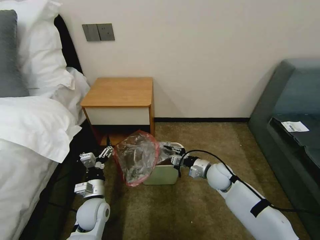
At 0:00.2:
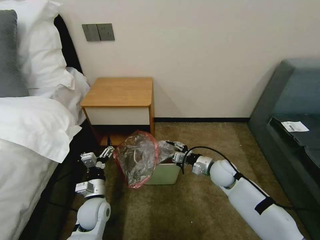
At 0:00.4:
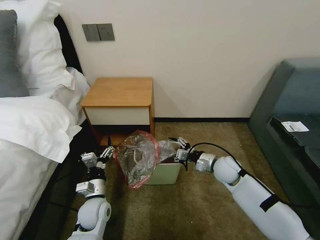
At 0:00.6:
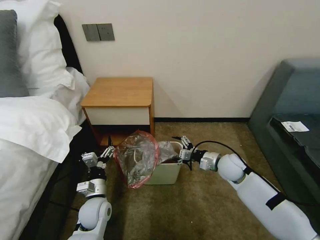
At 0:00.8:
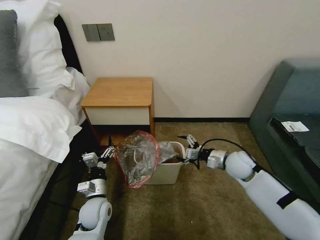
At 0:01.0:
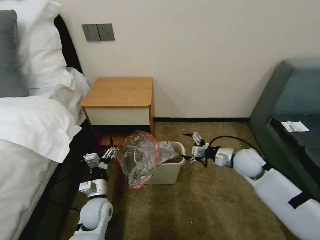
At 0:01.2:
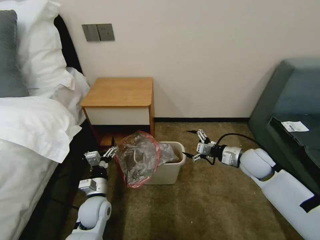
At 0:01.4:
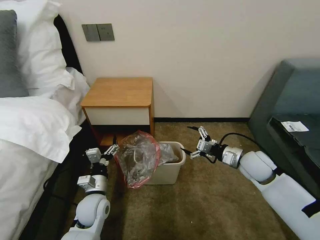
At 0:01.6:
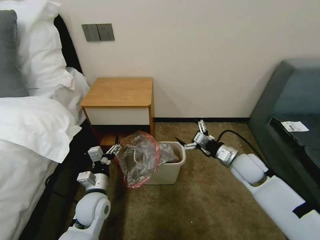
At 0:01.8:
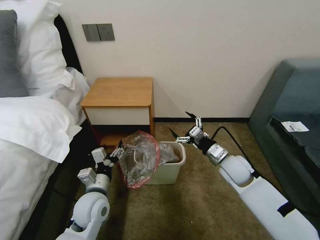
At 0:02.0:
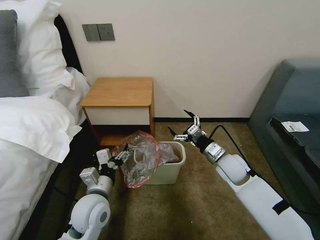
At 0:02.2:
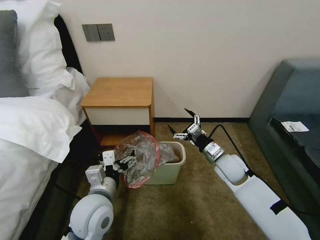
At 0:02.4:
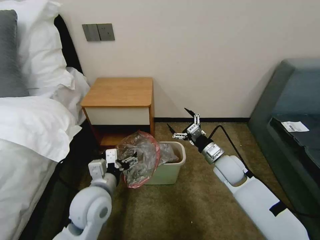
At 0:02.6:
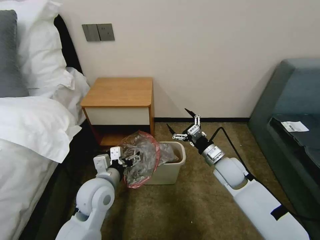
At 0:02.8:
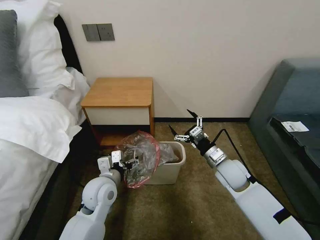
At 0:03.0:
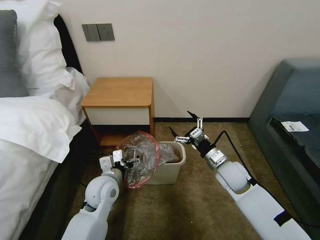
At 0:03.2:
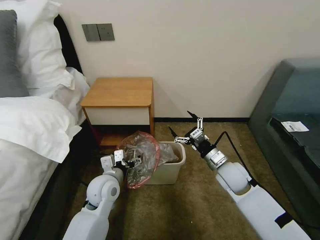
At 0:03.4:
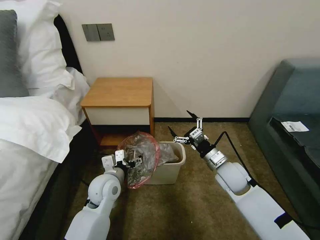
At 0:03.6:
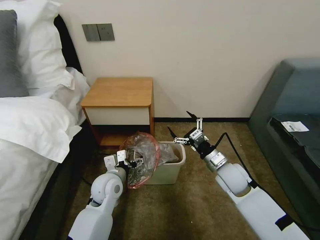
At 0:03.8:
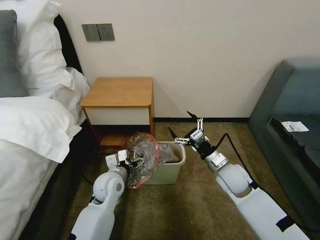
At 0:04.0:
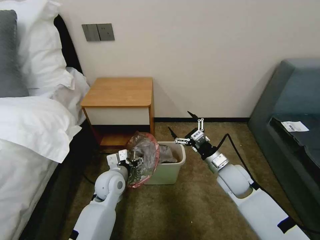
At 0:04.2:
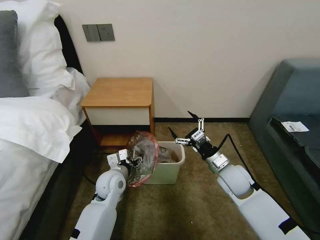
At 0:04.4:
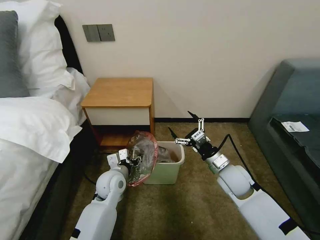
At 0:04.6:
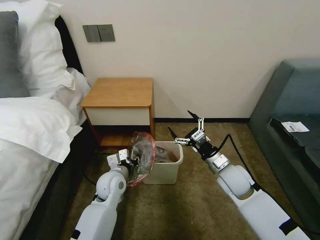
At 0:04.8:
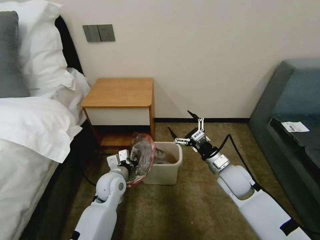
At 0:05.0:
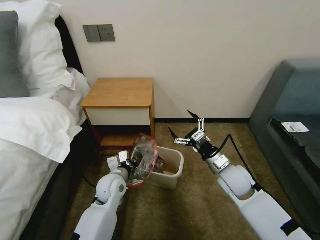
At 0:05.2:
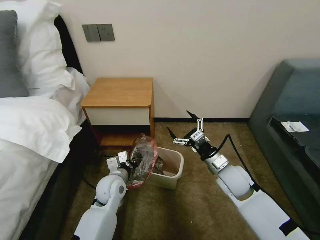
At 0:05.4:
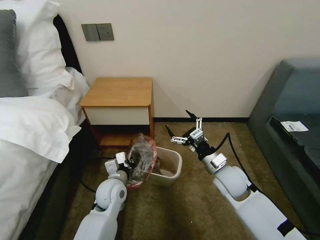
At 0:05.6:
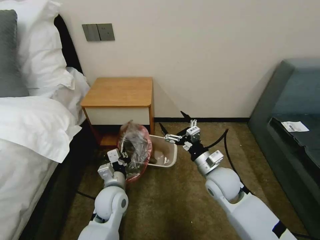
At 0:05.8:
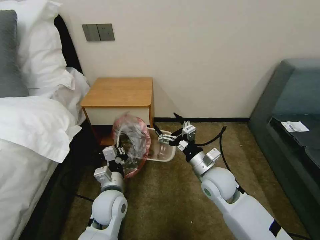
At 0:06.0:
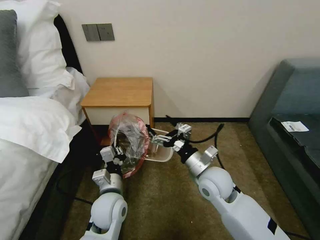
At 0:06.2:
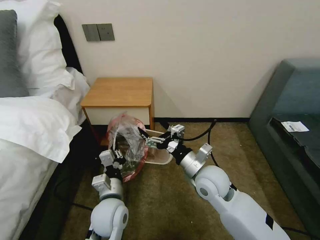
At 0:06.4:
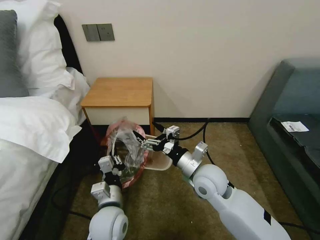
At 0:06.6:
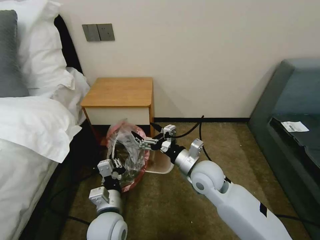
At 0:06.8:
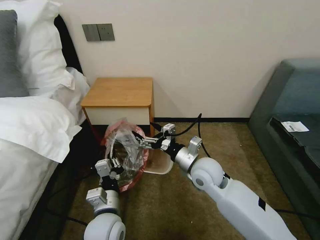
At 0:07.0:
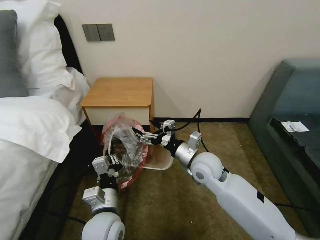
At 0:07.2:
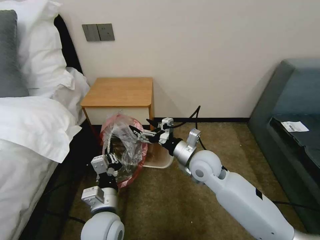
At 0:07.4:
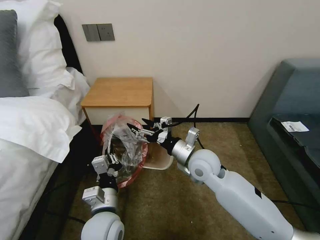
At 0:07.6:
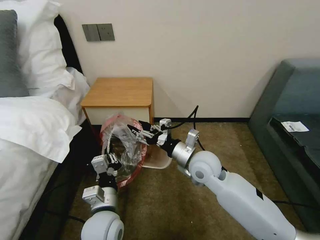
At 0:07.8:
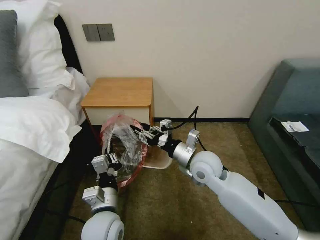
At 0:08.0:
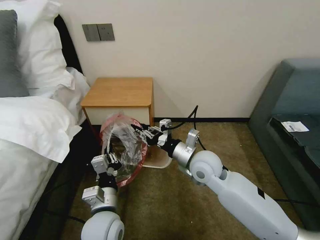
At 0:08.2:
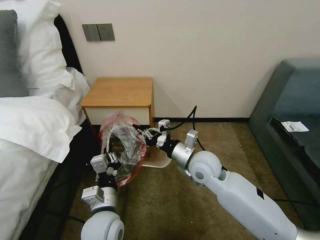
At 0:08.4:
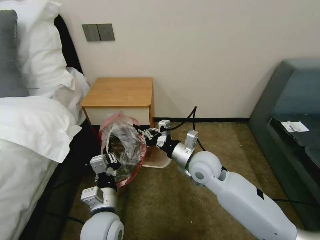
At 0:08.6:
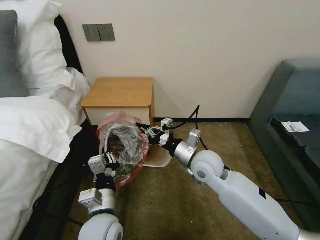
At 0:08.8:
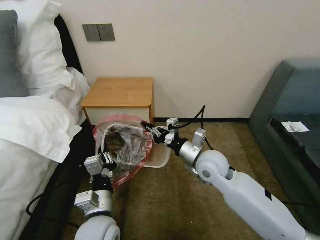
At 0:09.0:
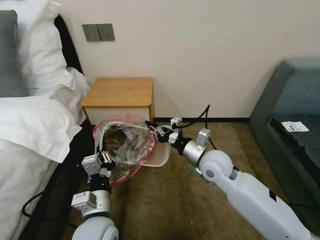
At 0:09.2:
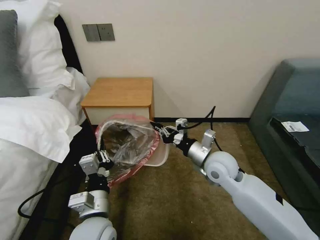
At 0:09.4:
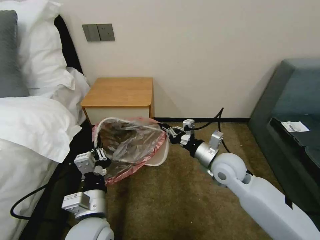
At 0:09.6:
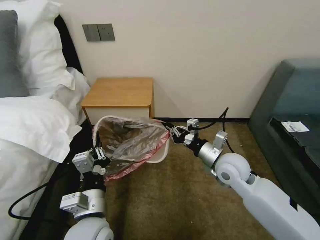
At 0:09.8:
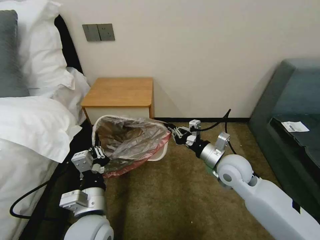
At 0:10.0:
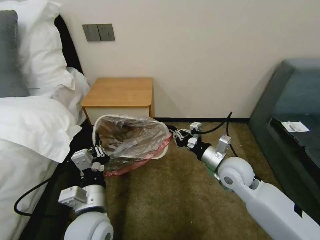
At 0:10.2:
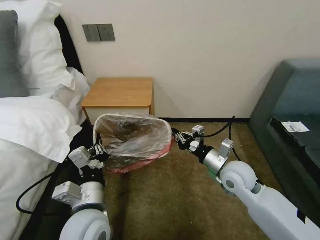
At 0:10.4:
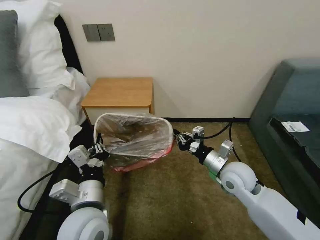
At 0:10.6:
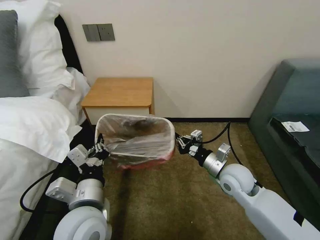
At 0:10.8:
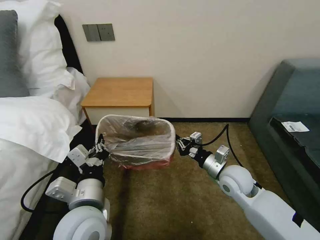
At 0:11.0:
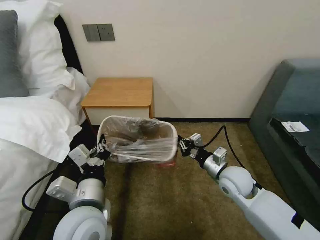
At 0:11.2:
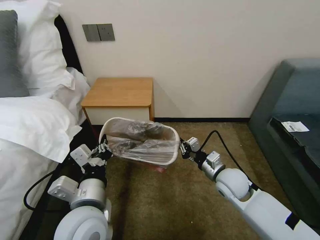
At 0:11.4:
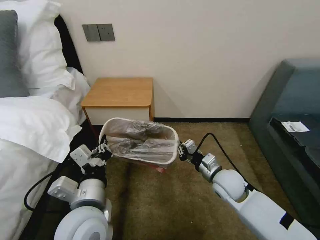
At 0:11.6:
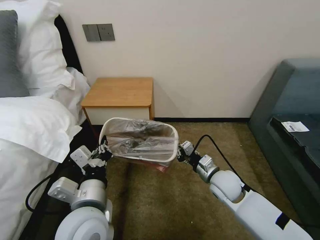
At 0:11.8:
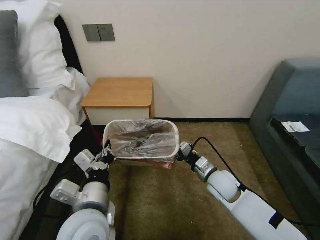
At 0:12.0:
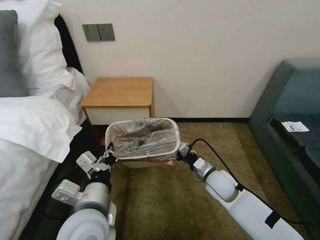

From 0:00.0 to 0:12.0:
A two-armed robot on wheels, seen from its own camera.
Task of the whole recording: Pick up the garbage bag from the table and place it over the trash can.
From 0:00.0 to 0:01.6: The right gripper shifts some 10 cm upward and to the right, and opens up.
From 0:01.6 to 0:03.0: The right gripper travels to the left by some 5 cm.
From 0:03.0 to 0:04.4: The left gripper moves approximately 5 cm, and closes.
From 0:04.4 to 0:06.0: The right gripper moves to the left, roughly 10 cm, while the left gripper travels backward by about 10 cm, and closes up.
From 0:06.0 to 0:07.6: The right gripper shifts by roughly 5 cm, and closes. Meanwhile the left gripper heads backward, covering roughly 5 cm.
From 0:07.6 to 0:09.0: The right gripper closes its fingers.
From 0:09.0 to 0:10.4: The right gripper moves to the right, about 5 cm. Meanwhile the left gripper travels upward by roughly 5 cm.
From 0:10.4 to 0:12.0: The right gripper heads downward, covering roughly 10 cm.

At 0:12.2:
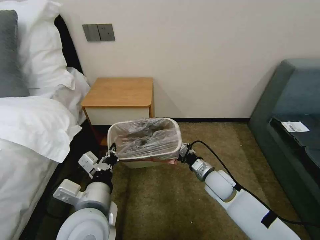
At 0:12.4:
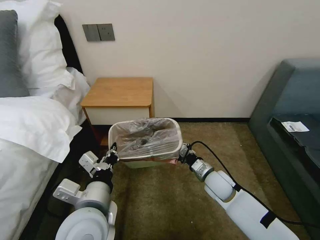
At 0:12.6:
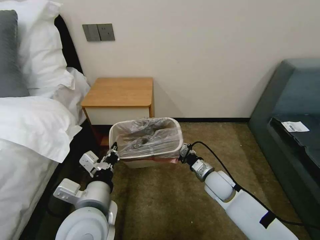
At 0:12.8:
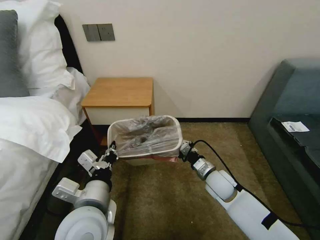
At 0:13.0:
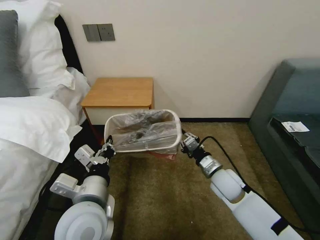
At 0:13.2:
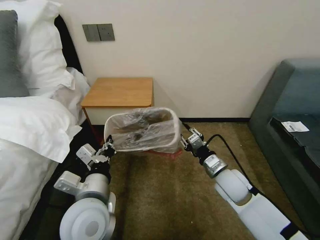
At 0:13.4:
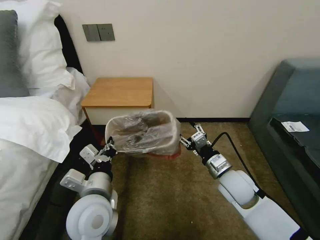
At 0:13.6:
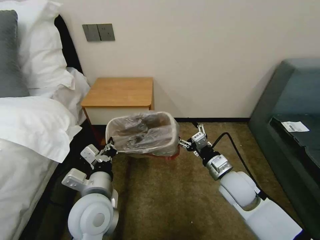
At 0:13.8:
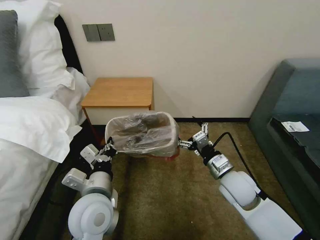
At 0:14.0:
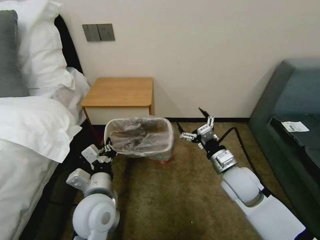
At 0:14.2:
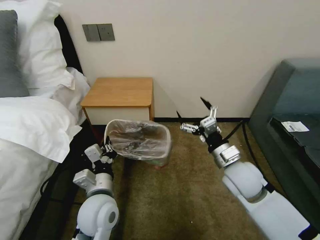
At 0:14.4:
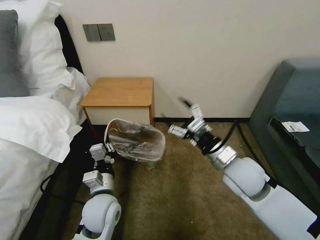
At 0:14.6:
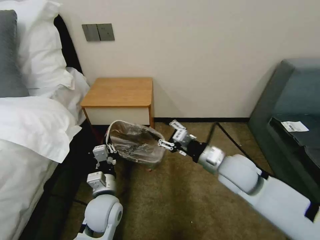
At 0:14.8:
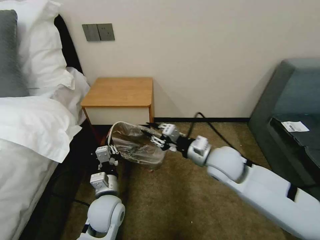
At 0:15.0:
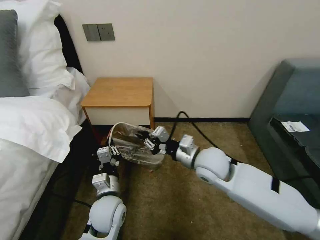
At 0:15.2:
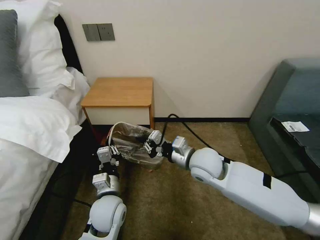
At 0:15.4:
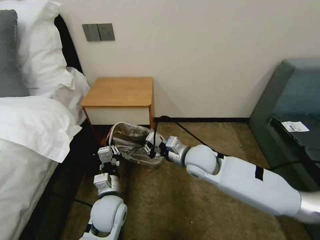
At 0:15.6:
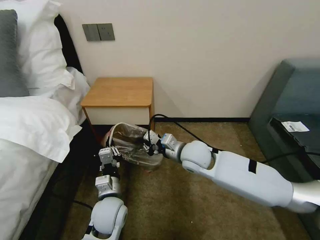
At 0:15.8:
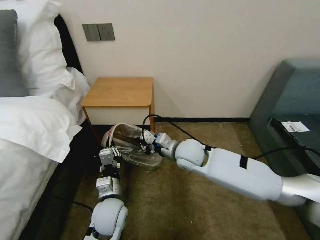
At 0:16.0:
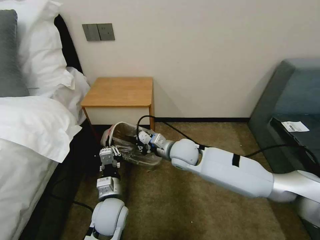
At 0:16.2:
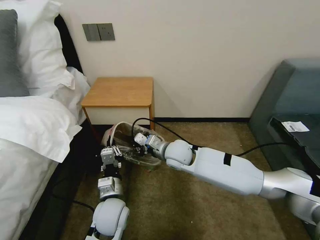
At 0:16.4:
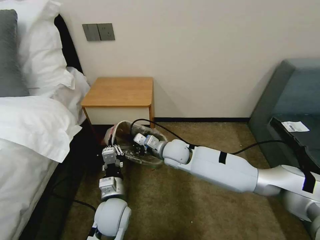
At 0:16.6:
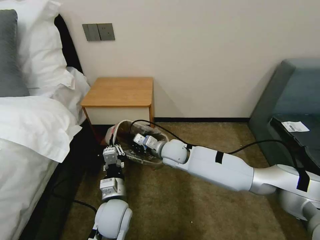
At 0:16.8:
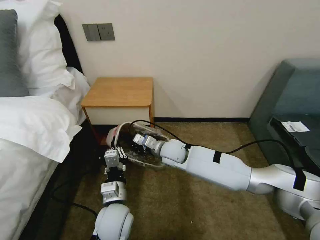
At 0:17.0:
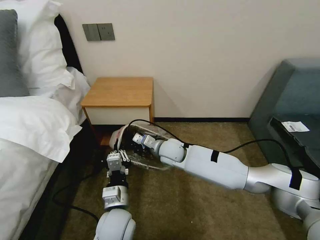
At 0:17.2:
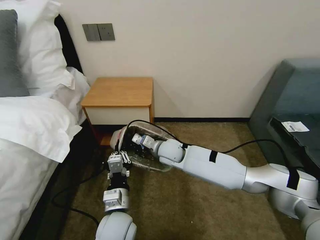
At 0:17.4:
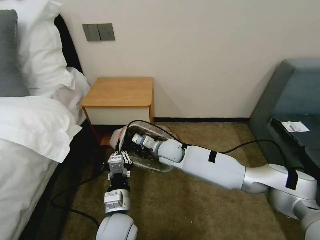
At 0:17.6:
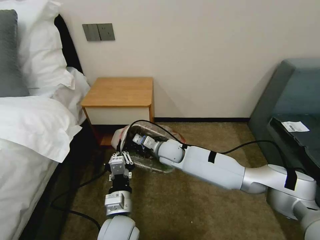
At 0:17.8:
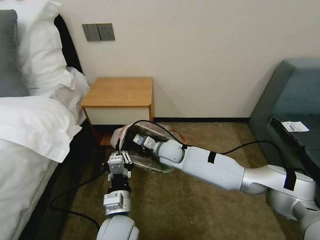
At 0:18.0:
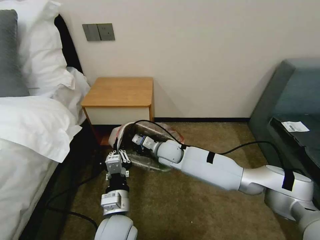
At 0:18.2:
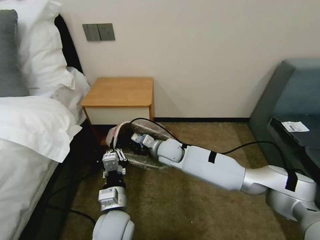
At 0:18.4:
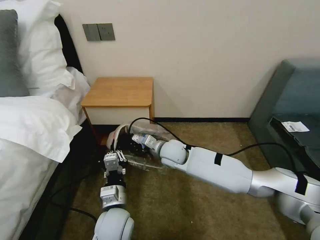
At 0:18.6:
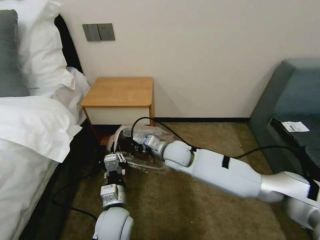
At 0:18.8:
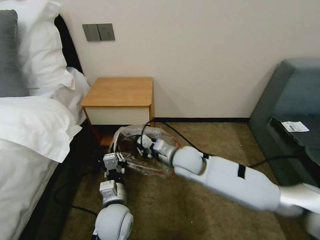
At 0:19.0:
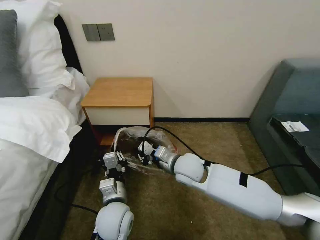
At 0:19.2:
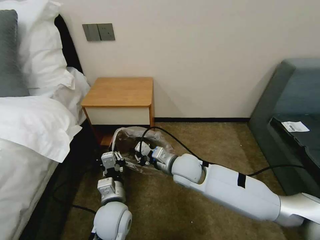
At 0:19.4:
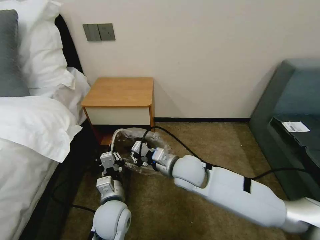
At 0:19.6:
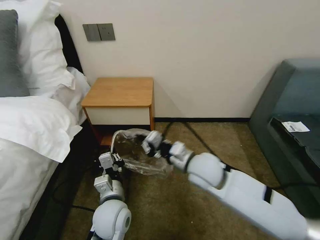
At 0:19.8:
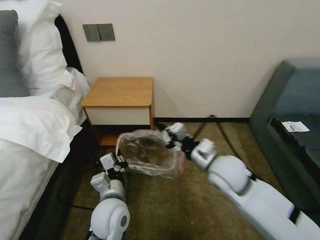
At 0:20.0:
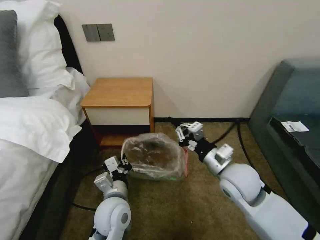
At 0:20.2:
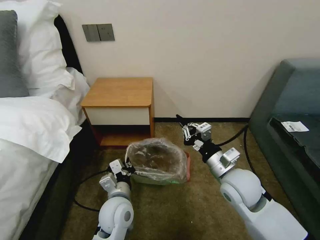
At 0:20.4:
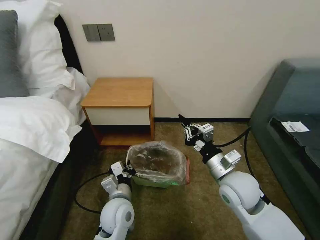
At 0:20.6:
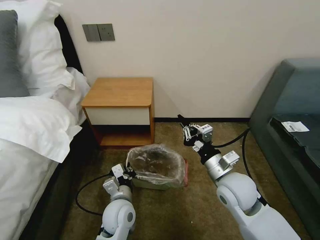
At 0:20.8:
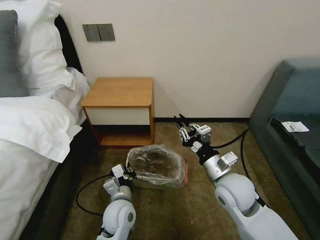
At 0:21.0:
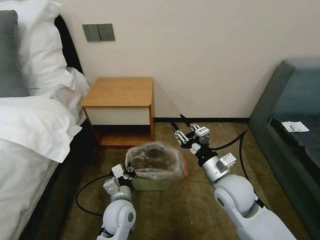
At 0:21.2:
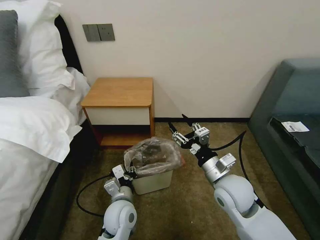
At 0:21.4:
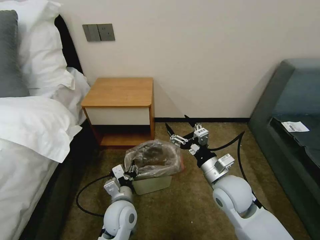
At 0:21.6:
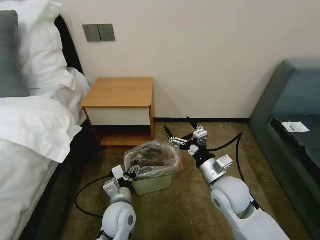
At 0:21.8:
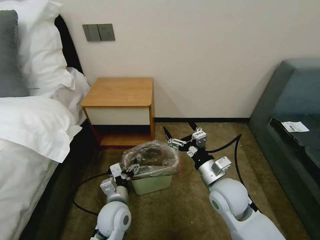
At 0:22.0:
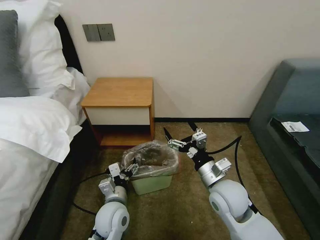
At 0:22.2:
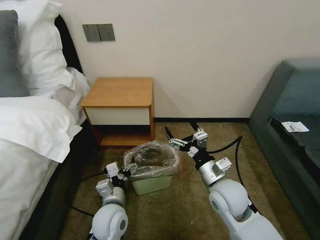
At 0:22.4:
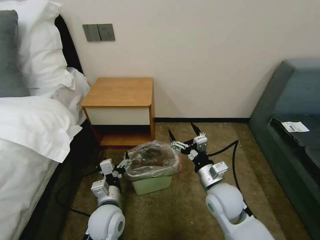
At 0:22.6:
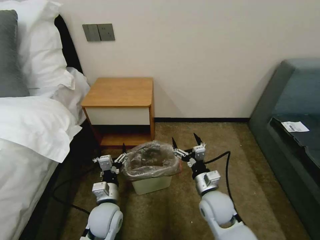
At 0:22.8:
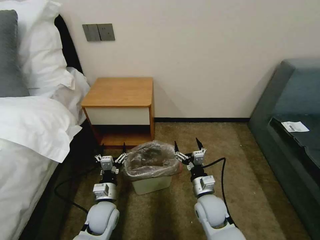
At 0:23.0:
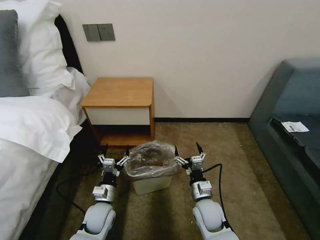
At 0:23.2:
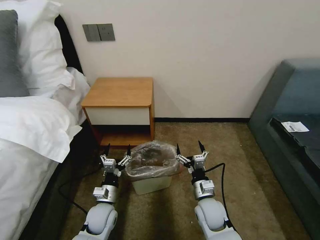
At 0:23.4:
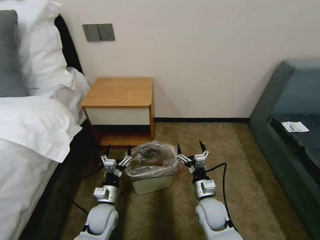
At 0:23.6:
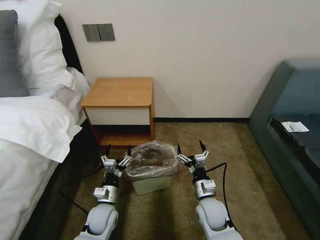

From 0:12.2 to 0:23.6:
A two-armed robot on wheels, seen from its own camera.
Task of the whole recording: Pick up the garbage bag from the table and place it over the trash can.
From 0:12.2 to 0:13.6: The right gripper moves upward, roughly 10 cm, and opens its fingers.
From 0:13.6 to 0:15.0: The left gripper is displaced downward by about 10 cm. The right gripper moves to the left and upward, roughly 10 cm, and closes up.
From 0:15.0 to 0:16.4: The right gripper goes some 15 cm to the left, forward and downward.
From 0:16.4 to 0:17.8: The left gripper moves backward, about 5 cm.
From 0:17.8 to 0:19.4: The right gripper shifts about 10 cm backward and upward. Meanwhile the left gripper shifts by approximately 5 cm.
From 0:19.4 to 0:20.8: The right gripper shifts roughly 15 cm to the right and backward.
From 0:20.8 to 0:22.2: The right gripper opens. Meanwhile the left gripper opens.
From 0:22.2 to 0:23.6: The right gripper shifts roughly 15 cm downward, while the left gripper goes some 10 cm downward and to the left.
